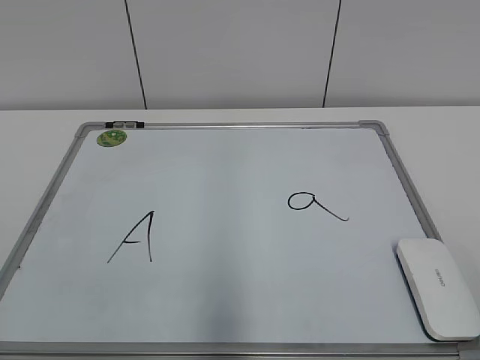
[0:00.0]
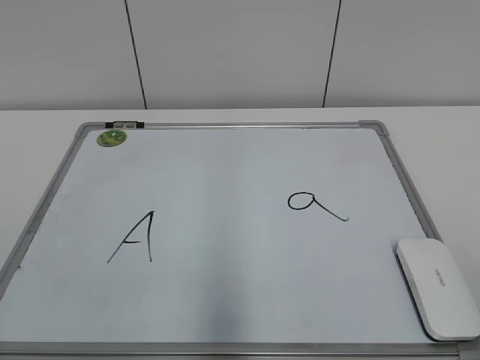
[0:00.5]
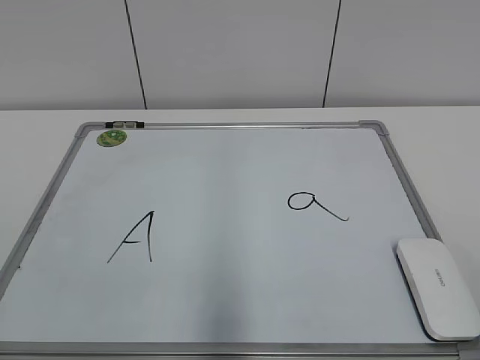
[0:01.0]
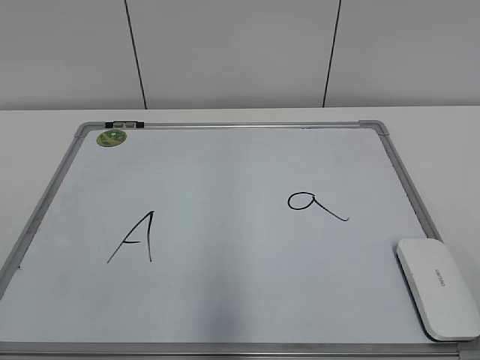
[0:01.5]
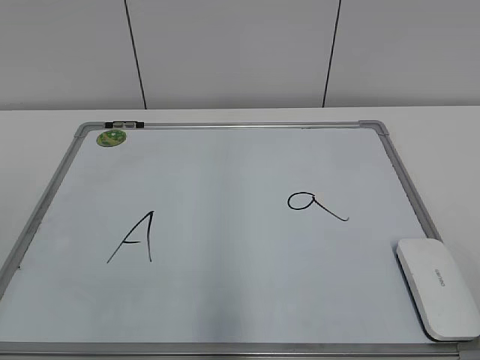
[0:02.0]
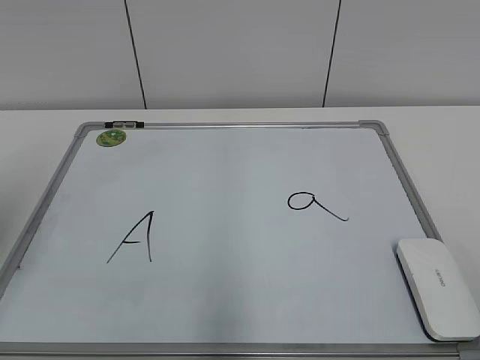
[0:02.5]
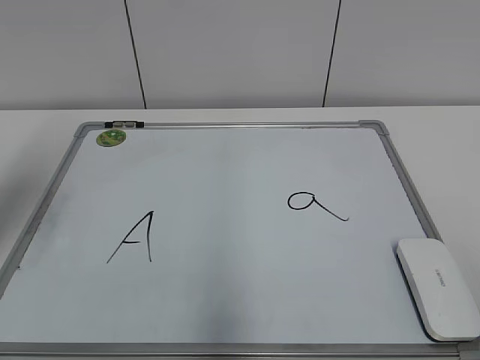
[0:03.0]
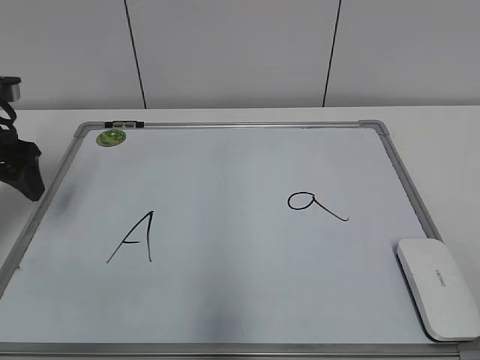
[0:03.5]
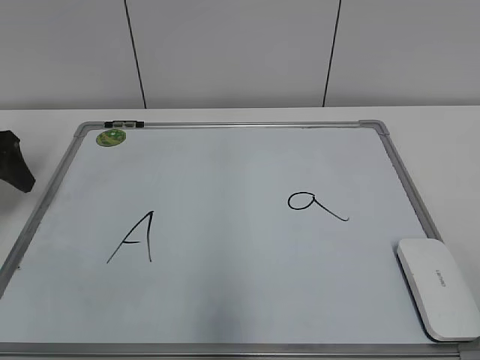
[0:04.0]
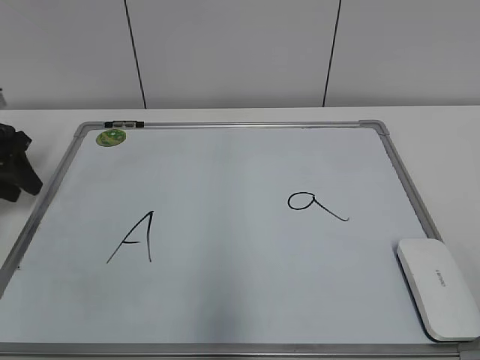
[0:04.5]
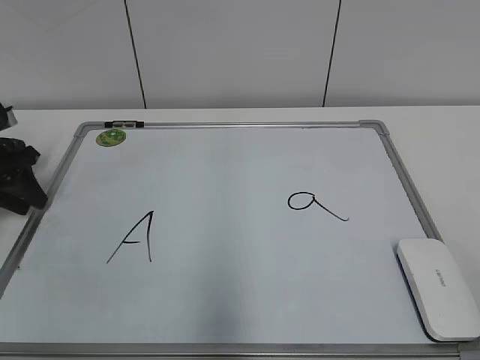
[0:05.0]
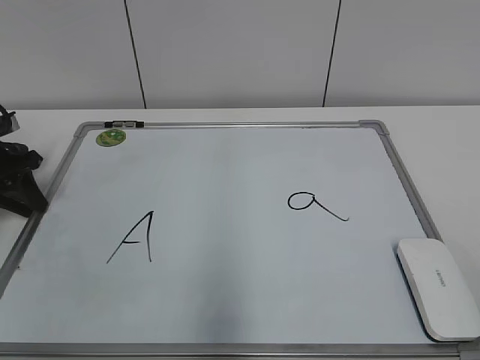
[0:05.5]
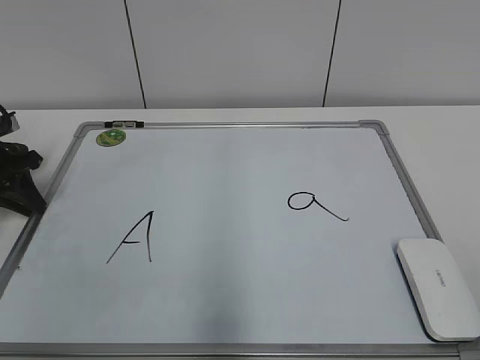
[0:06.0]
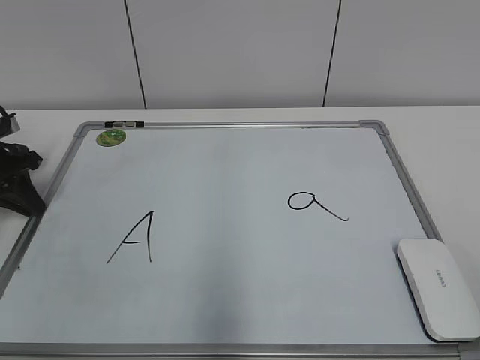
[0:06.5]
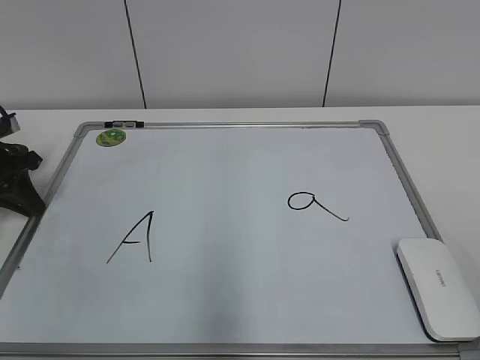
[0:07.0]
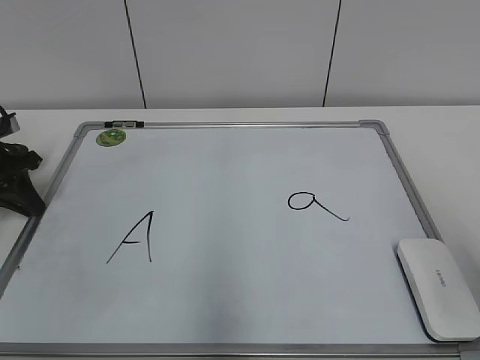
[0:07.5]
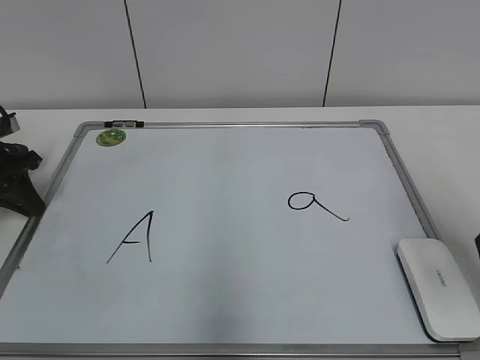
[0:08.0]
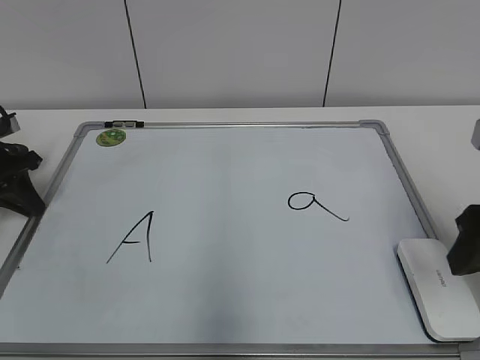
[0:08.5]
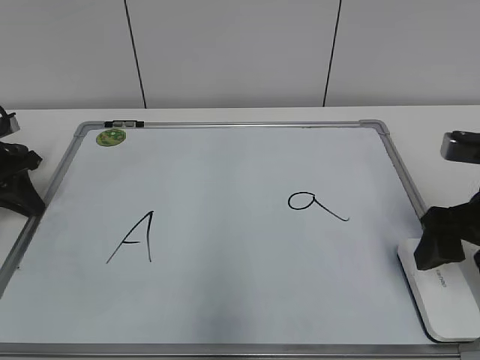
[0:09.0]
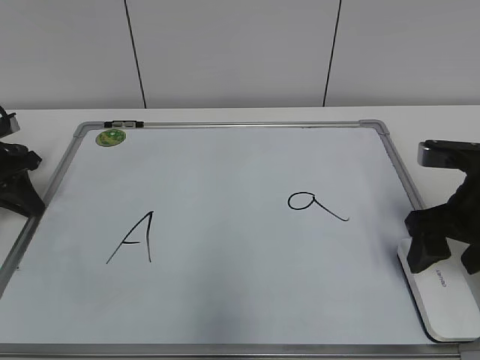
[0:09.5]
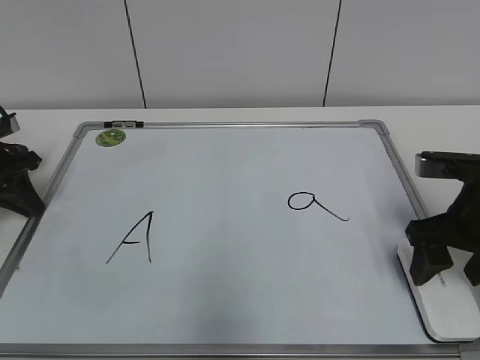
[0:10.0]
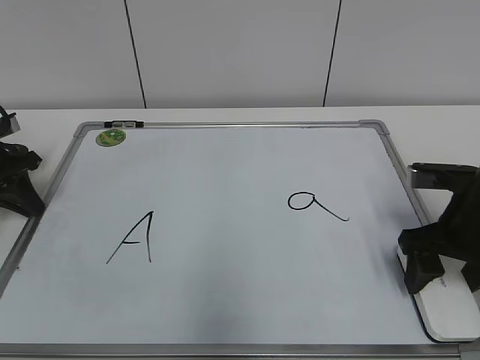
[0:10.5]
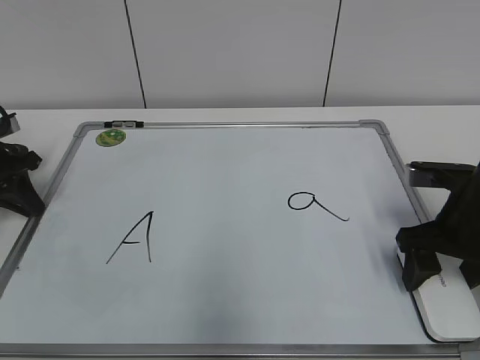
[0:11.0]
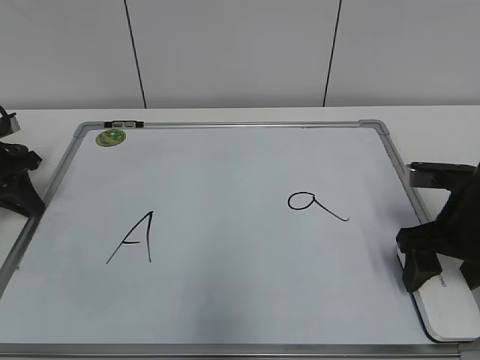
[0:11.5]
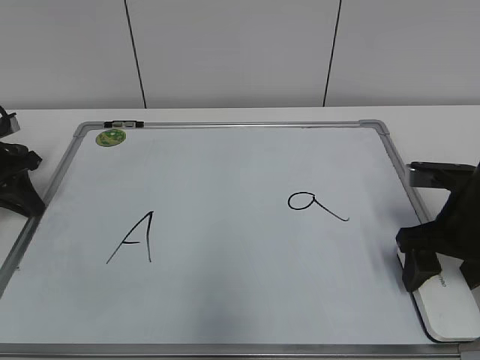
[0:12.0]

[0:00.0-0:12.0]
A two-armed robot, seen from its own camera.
Task of the whole recording: pick up the eraser on the blackboard and erase the letter "a".
Step, 0:00.0 to 0:06.0: Hold the drawing board steady with your left hand.
Step, 0:06.5 to 0:11.0: Grab the eraser with your right hand.
0:02.0 to 0:04.0: The left gripper is displaced forward and downward by approximately 35 cm.
0:04.0 to 0:06.0: The left gripper shifts about 5 cm downward, and closes its fingers.
0:06.0 to 0:08.0: The right gripper shifts approximately 20 cm forward.
0:08.0 to 0:10.0: The right gripper moves downward and forward, some 15 cm.
0:10.0 to 0:12.0: The grippers move only a little.

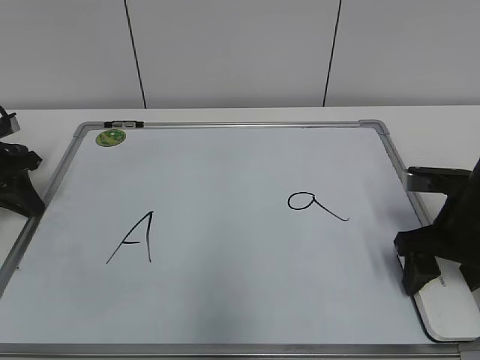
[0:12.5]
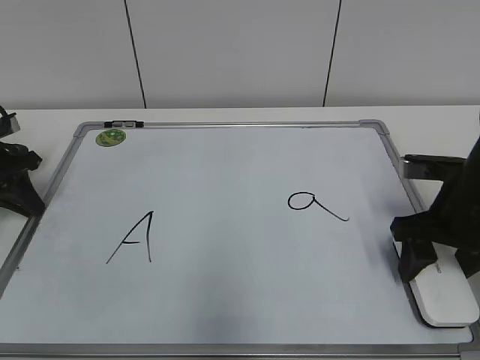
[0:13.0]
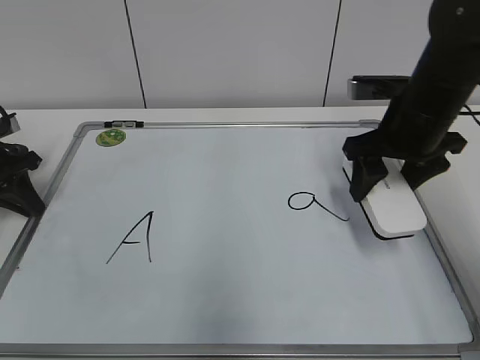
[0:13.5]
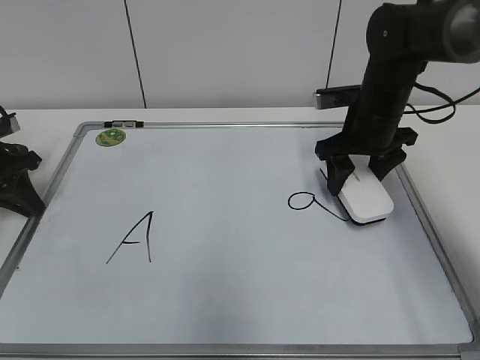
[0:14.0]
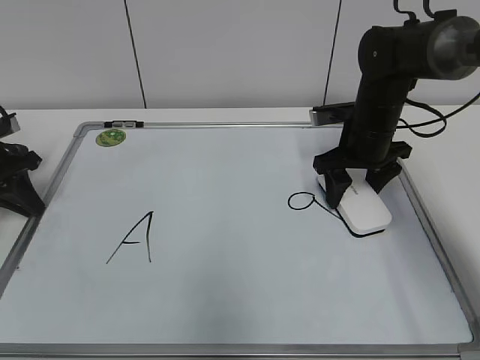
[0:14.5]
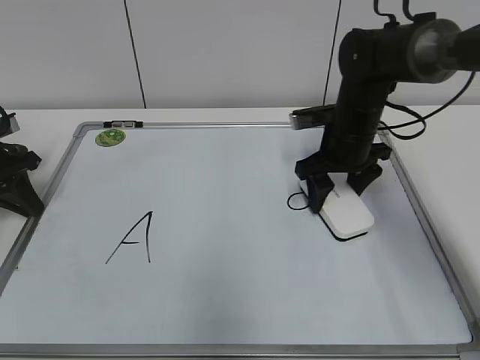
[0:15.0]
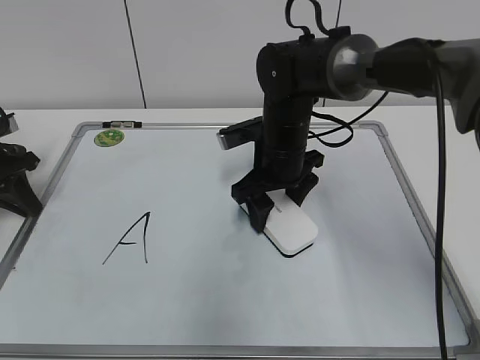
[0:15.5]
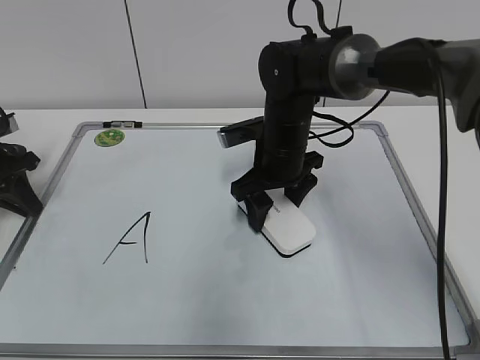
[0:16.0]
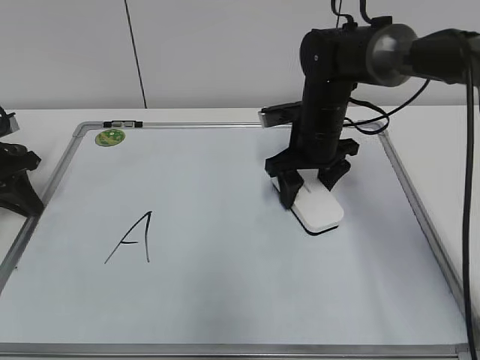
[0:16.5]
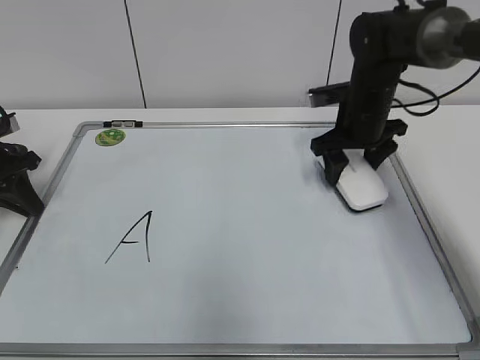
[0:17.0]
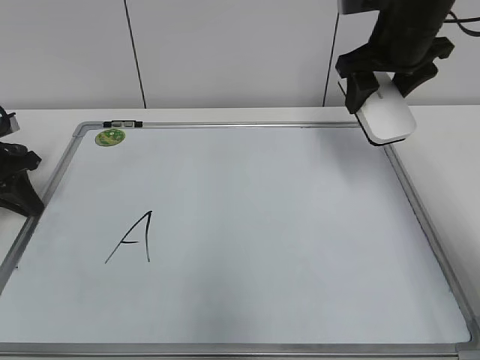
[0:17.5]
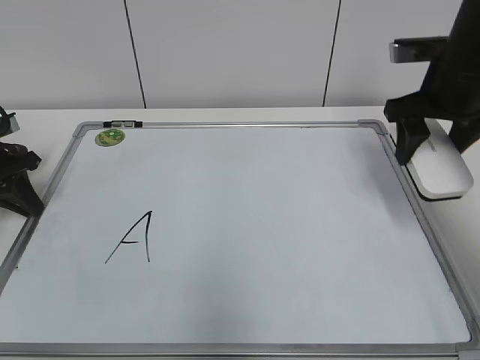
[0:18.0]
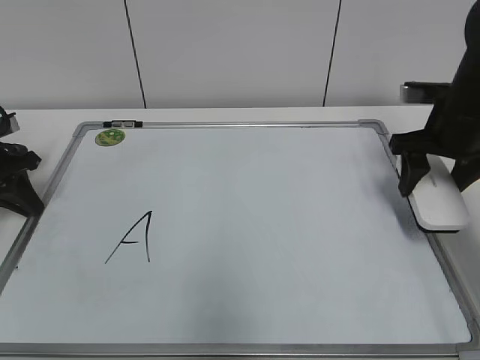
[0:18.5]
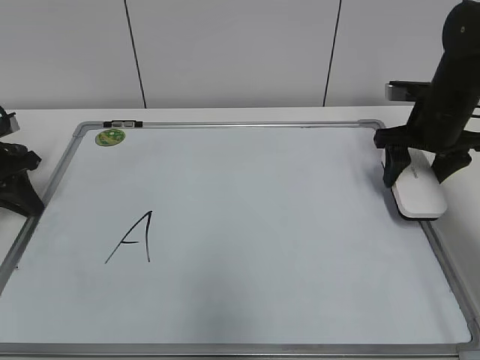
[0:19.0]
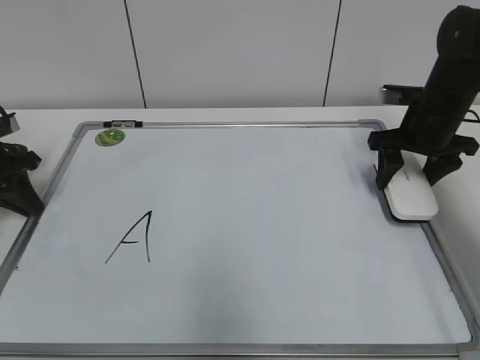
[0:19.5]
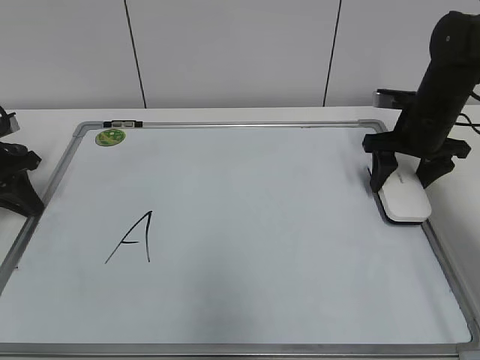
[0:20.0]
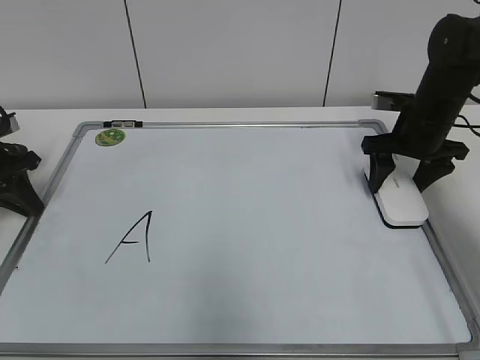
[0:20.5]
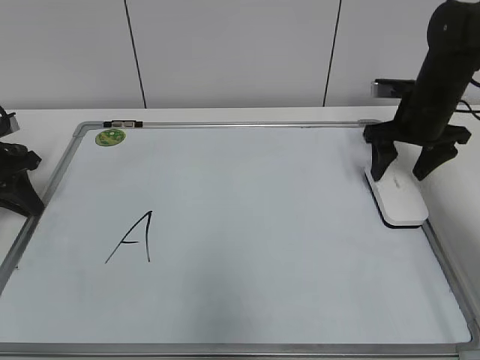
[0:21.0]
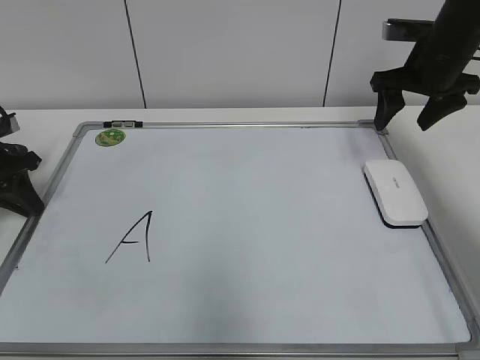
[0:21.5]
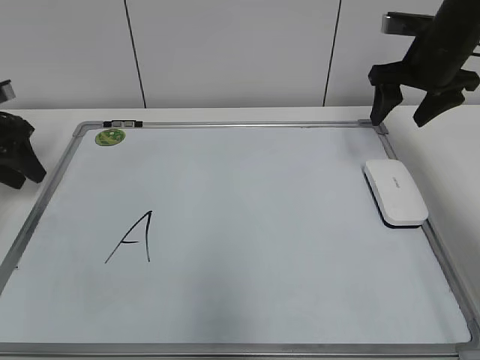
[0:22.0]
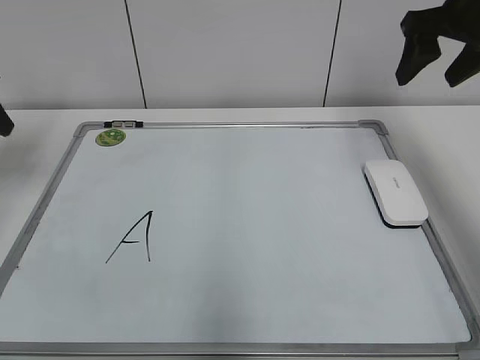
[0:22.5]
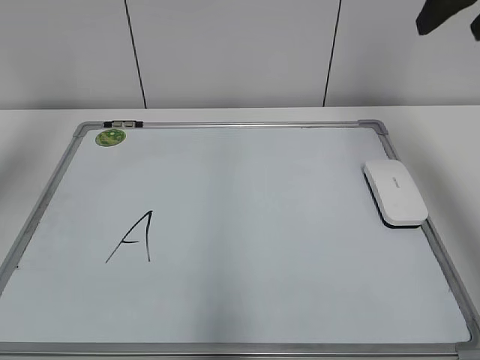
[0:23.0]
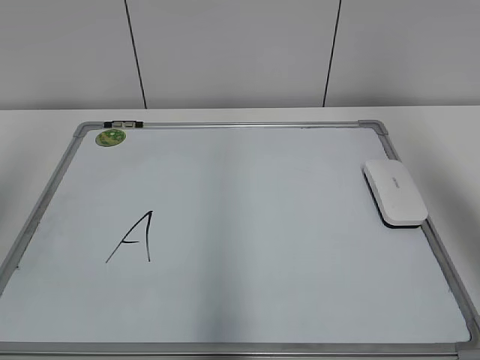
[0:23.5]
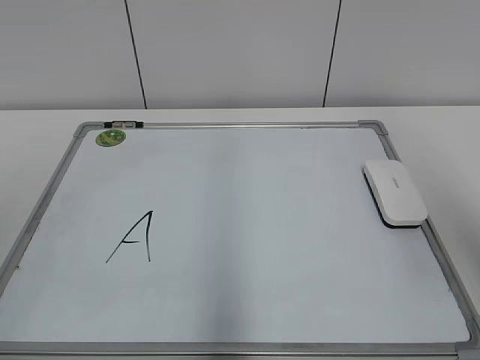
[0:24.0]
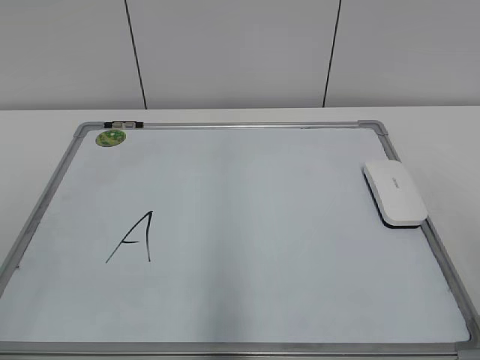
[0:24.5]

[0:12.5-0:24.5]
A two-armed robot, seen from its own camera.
Task of the whole recording: pick up the eraser on the blackboard and erase the letter "a".
Step, 0:12.5 to 0:16.5: Erase the letter a with your right hand.
Step, 0:17.0 to 0:20.5: Put down the eraser with your right hand.
0:12.5 to 0:14.5: The right gripper goes some 15 cm forward and to the left.
0:14.5 to 0:16.5: The right gripper heads to the left, covering approximately 5 cm.
0:16.5 to 0:18.5: The right gripper is displaced to the right by approximately 15 cm.
0:18.5 to 0:20.5: The right gripper changes place by about 5 cm.
0:20.5 to 0:22.5: Both grippers move upward, roughly 15 cm. The left gripper opens up.
0:22.5 to 0:24.5: Both grippers move backward, approximately 35 cm.
